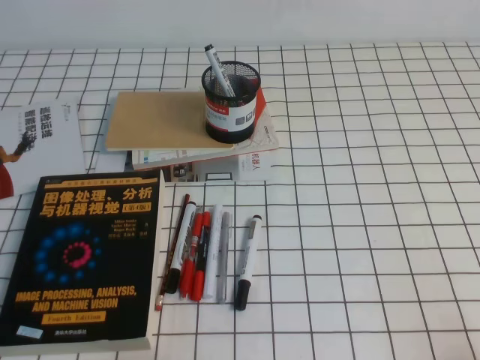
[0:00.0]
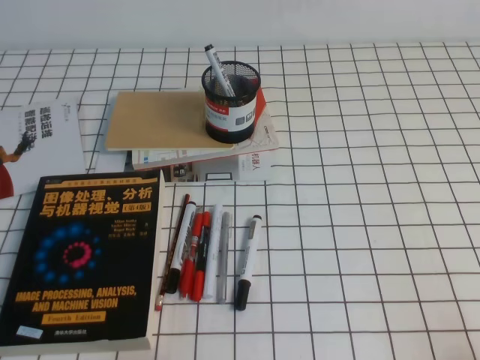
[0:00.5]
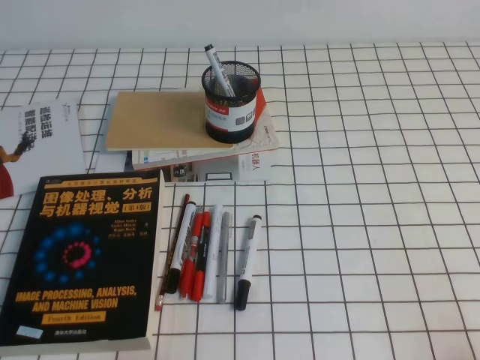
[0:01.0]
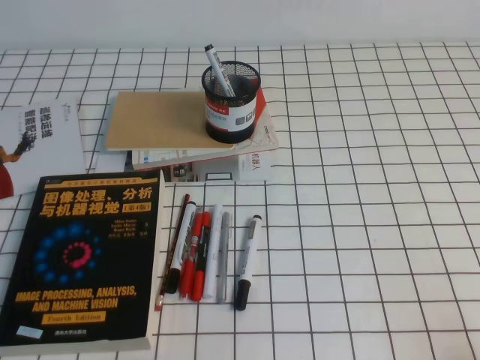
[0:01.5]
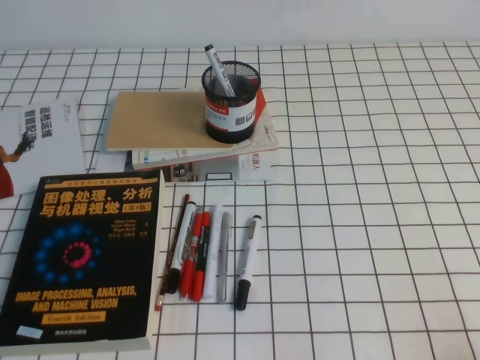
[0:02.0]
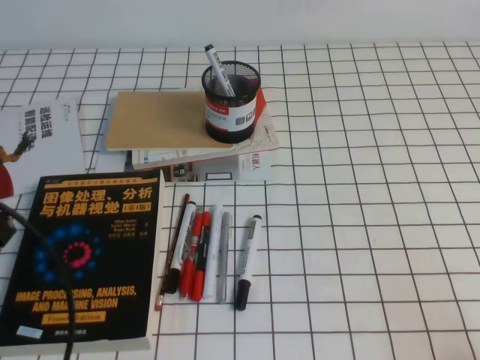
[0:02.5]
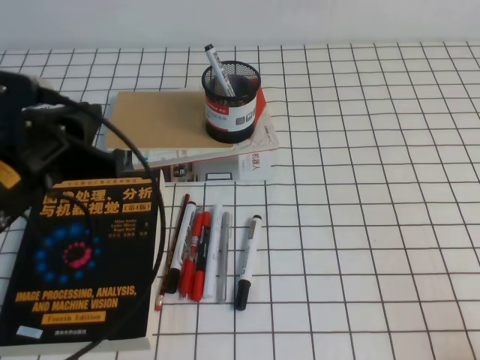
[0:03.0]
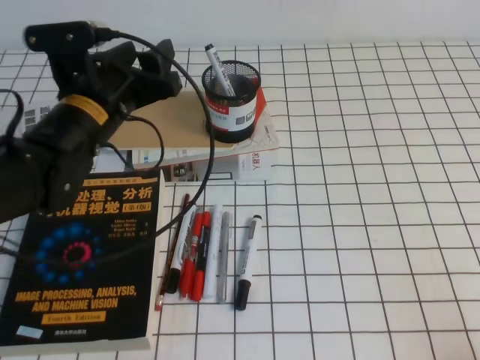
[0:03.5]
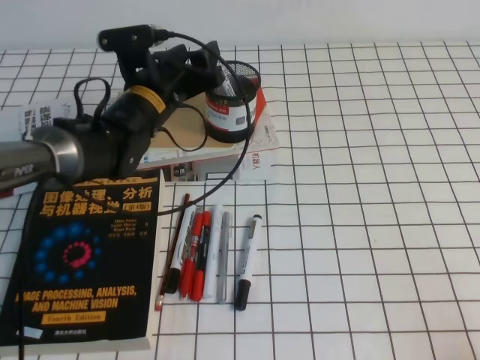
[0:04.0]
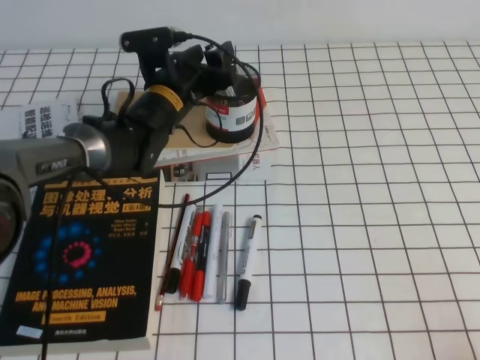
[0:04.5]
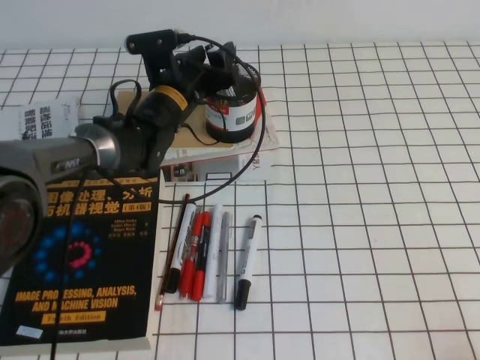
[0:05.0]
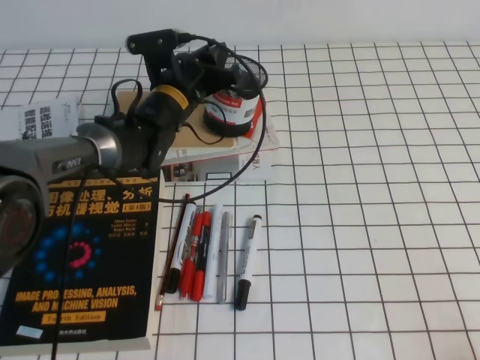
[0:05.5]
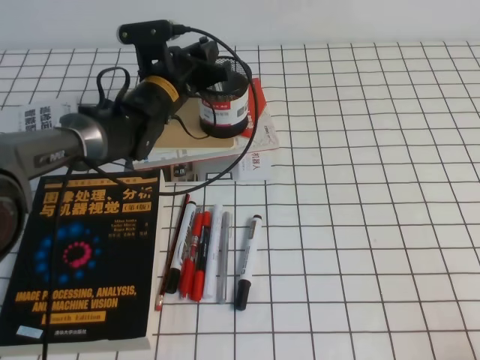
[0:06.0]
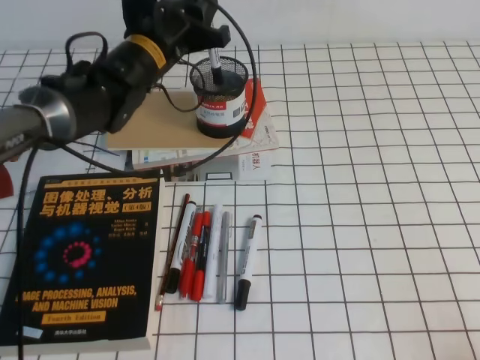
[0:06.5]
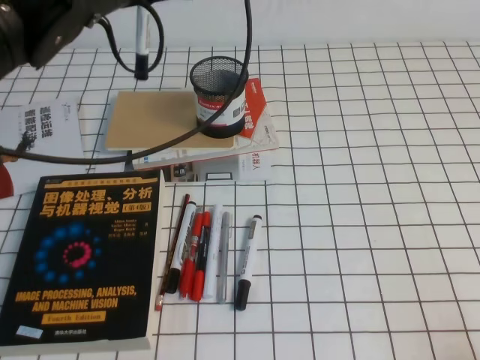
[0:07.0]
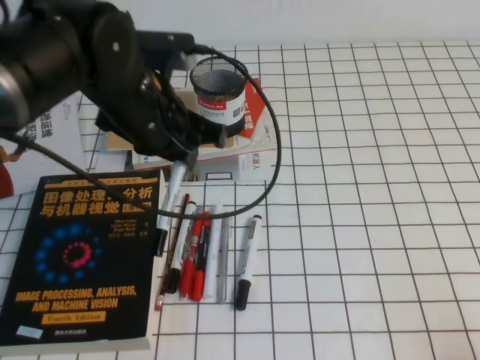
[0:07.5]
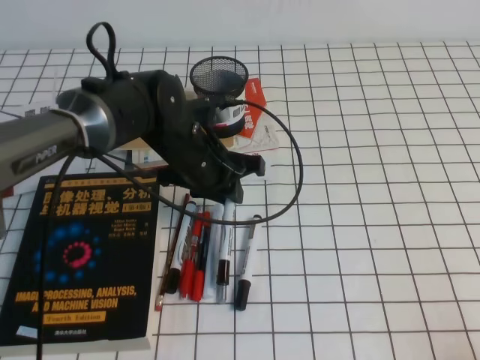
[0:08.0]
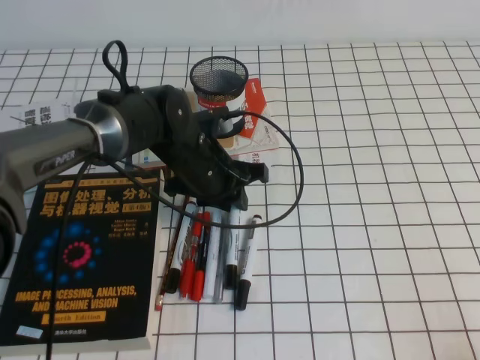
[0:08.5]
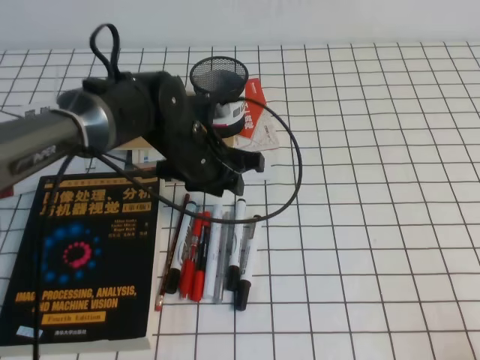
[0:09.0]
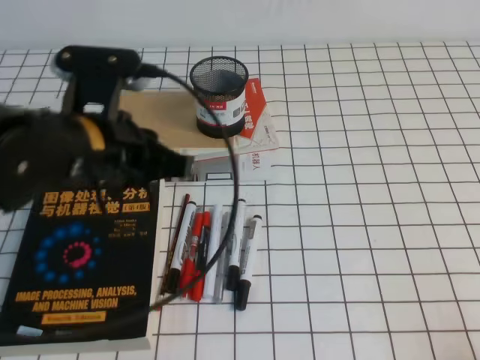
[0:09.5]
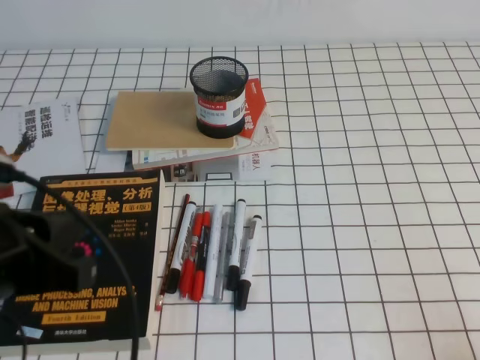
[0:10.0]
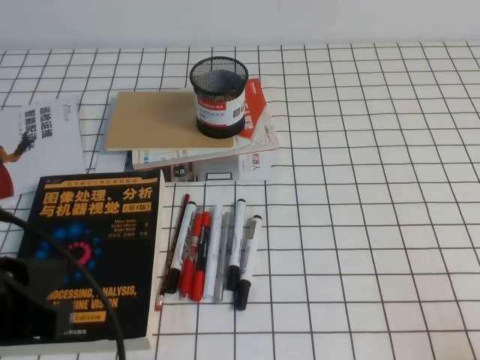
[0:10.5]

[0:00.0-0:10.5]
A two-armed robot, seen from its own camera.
0:02.0 to 0:04.0: The left gripper heads forward and to the right, covering roughly 40 cm, and opens up.
0:04.0 to 0:06.5: The left gripper shifts by approximately 5 cm, and closes.
0:06.5 to 0:08.5: The left gripper travels downward and backward by approximately 10 cm.
0:08.5 to 0:10.5: The left gripper is displaced backward, to the left and upward by approximately 35 cm.

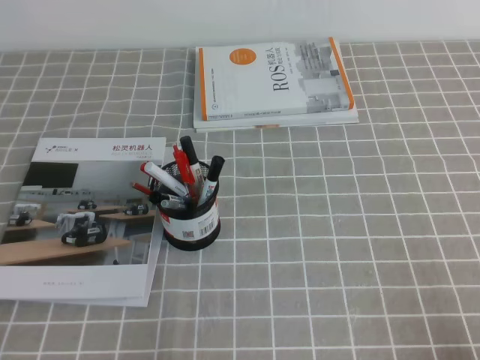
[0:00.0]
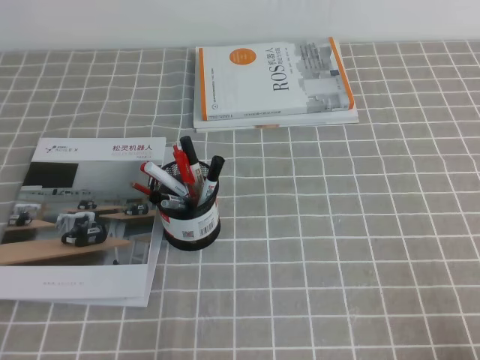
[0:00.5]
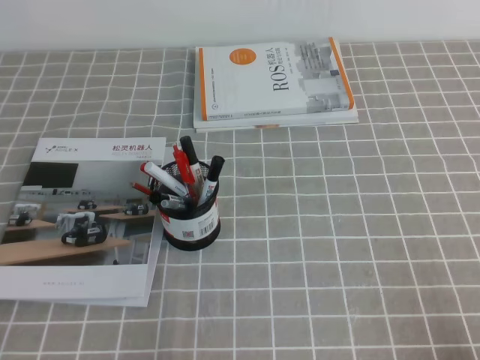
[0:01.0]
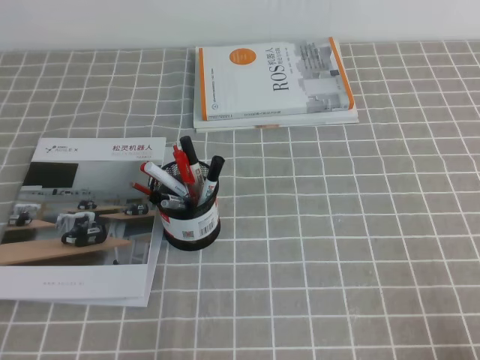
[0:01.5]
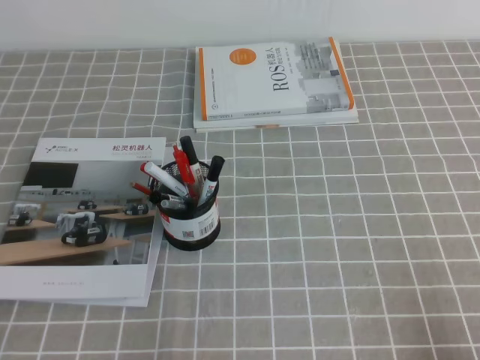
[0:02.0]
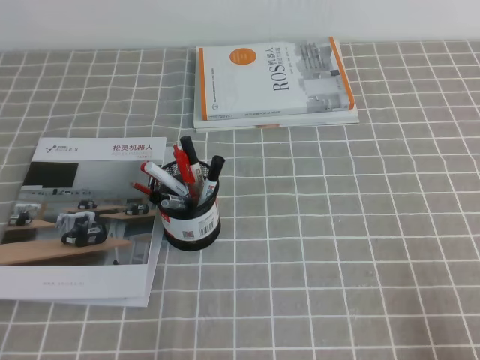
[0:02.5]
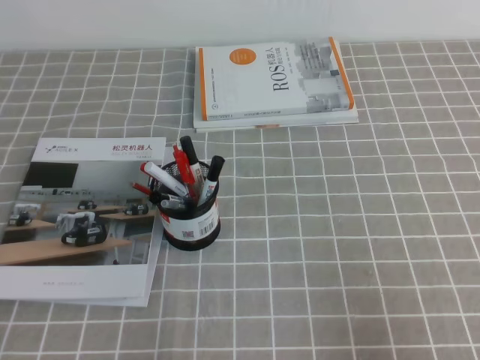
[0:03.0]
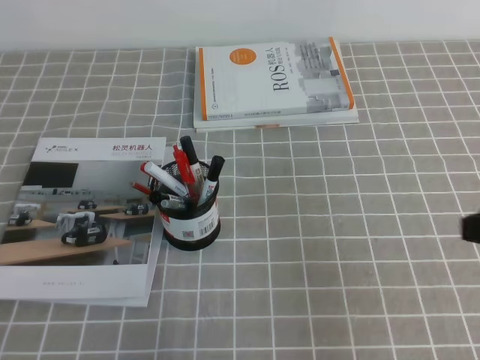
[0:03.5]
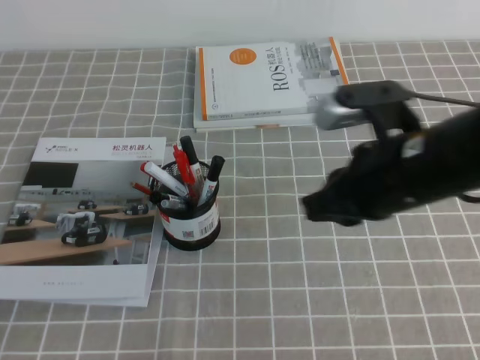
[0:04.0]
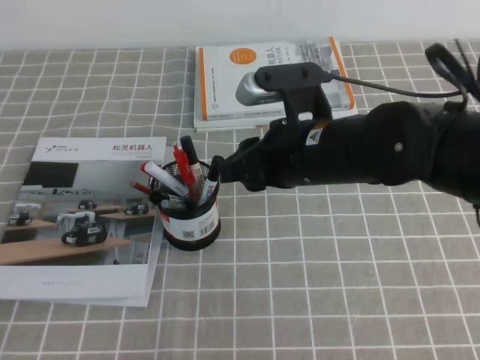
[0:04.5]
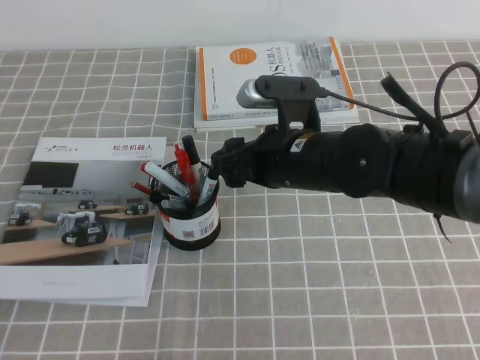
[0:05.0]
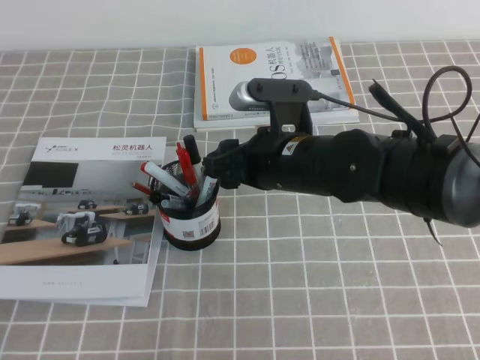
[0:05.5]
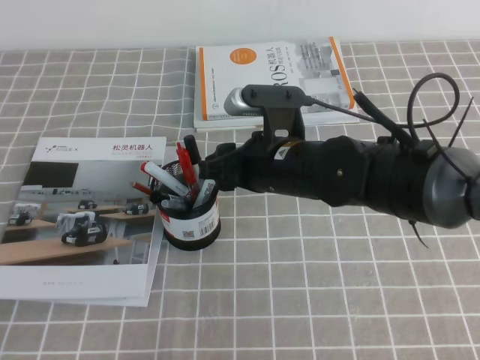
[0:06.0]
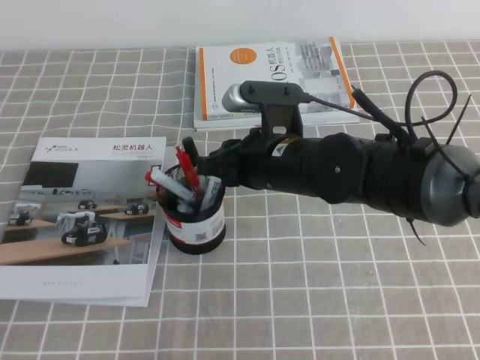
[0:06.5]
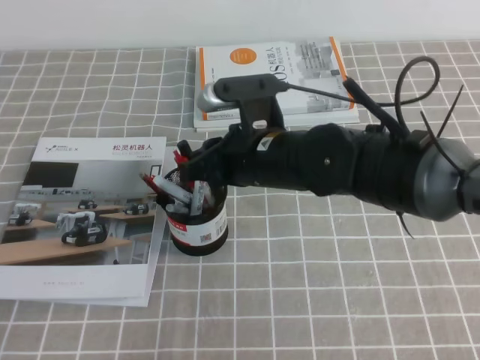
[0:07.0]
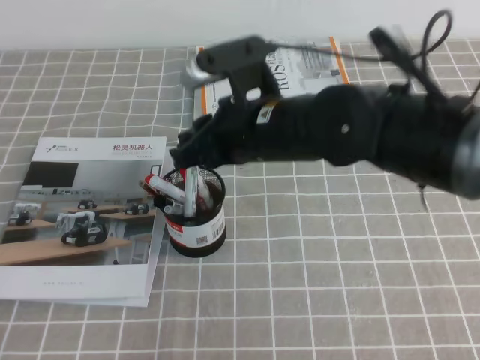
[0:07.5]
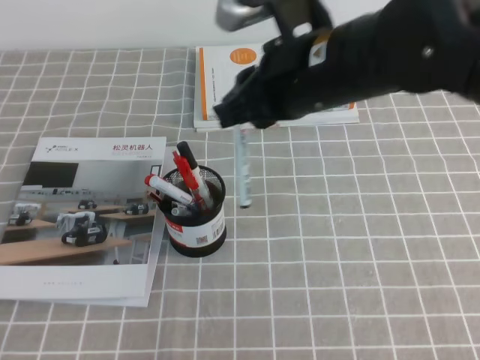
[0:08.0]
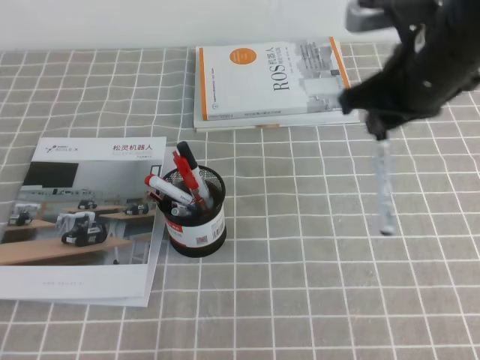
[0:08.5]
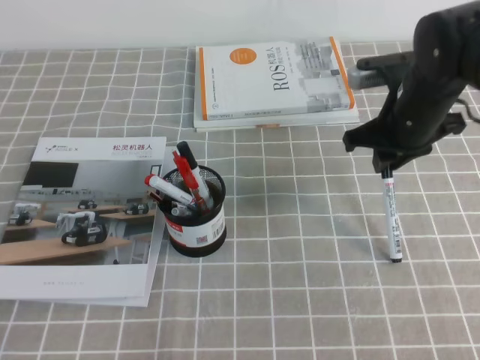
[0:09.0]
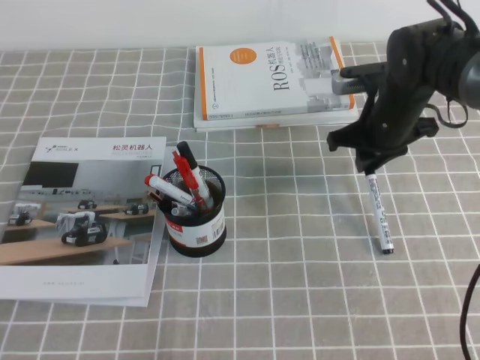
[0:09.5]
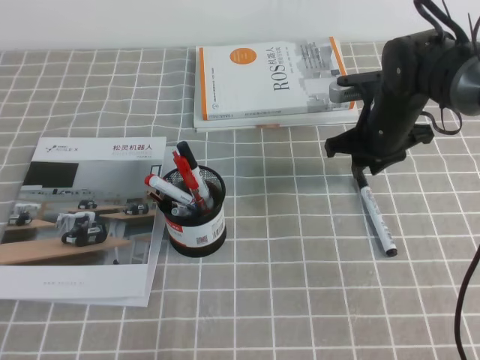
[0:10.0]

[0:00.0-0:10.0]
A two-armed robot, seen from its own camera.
0:02.0 to 0:04.0: The right gripper heads forward, to the left and upward, covering about 30 cm.
0:04.0 to 0:06.0: The right gripper moves to the left, forward and downward, about 15 cm, and opens up.
0:06.0 to 0:08.0: The right gripper travels upward by some 15 cm, and closes its fingers.
0:08.0 to 0:10.0: The right gripper is displaced downward, forward and to the right by roughly 25 cm.

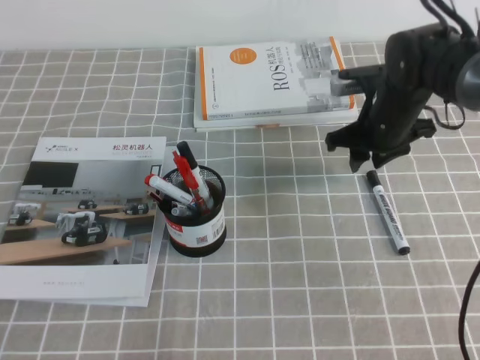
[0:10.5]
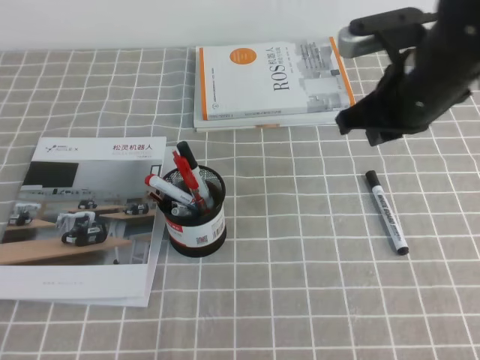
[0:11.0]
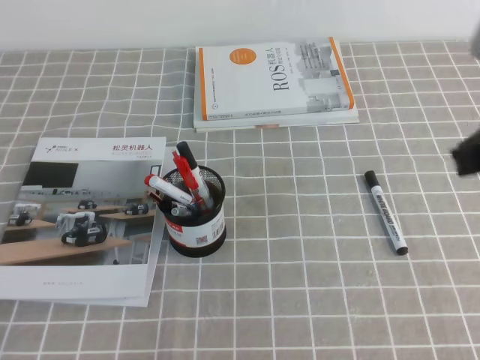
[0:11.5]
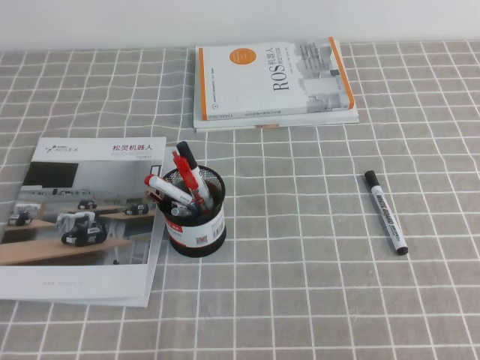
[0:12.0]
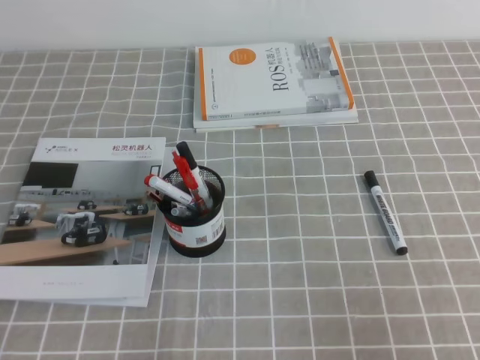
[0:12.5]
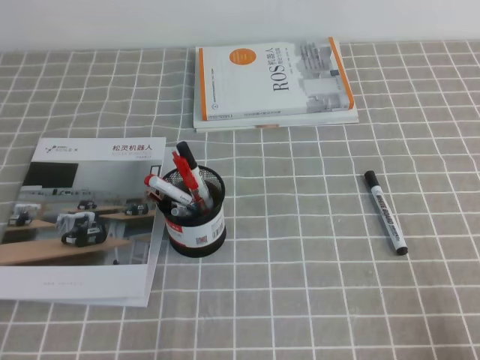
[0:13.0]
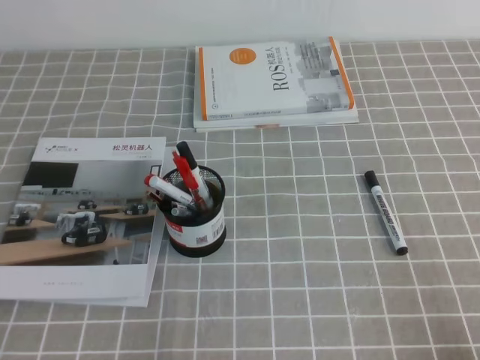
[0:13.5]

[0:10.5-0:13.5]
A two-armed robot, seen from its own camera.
Step, 0:10.5 to 0:13.5: Pick up the pen from the pen holder.
0:10.5 to 0:12.0: The right gripper goes some 35 cm backward, and closes up.
0:12.0 to 0:13.5: The right gripper shifts roughly 20 cm downward.
